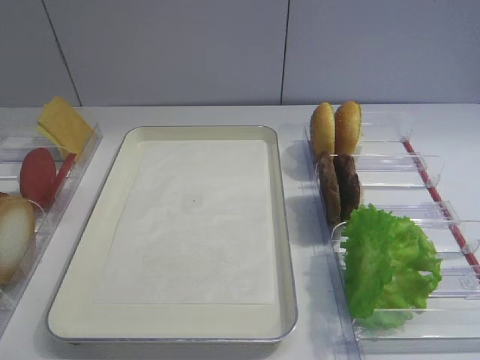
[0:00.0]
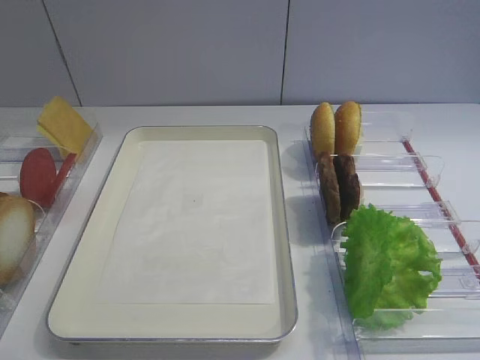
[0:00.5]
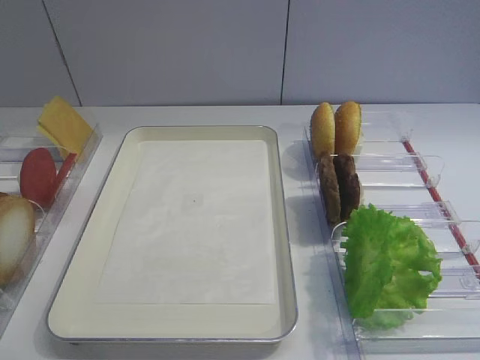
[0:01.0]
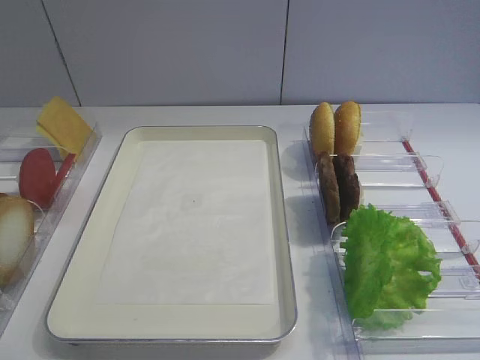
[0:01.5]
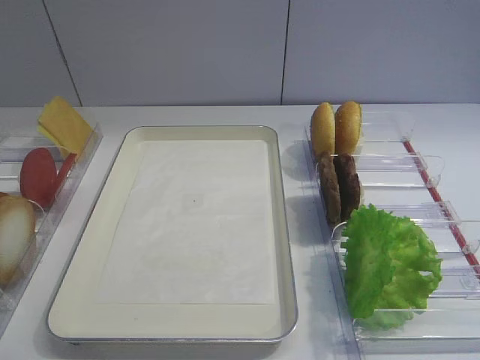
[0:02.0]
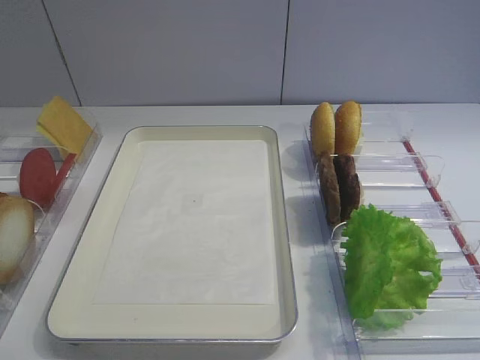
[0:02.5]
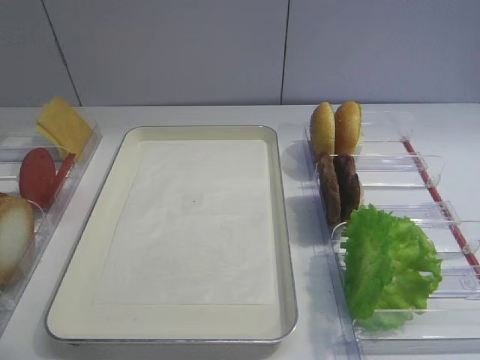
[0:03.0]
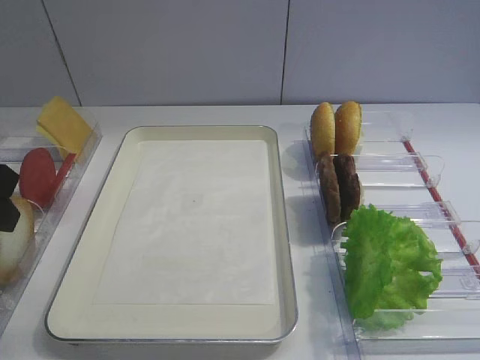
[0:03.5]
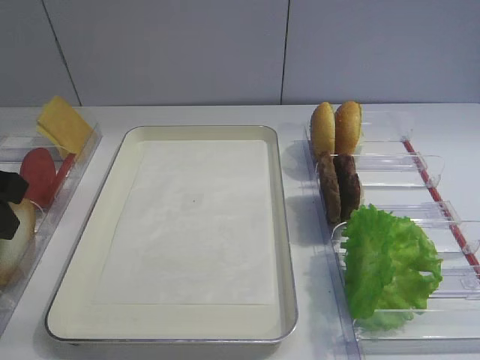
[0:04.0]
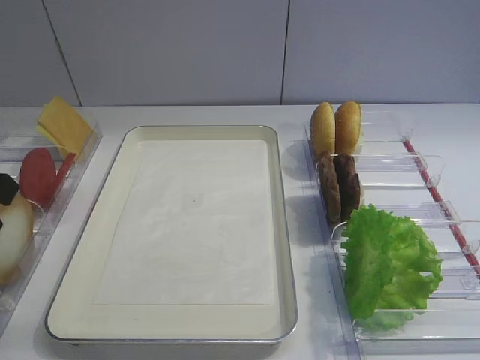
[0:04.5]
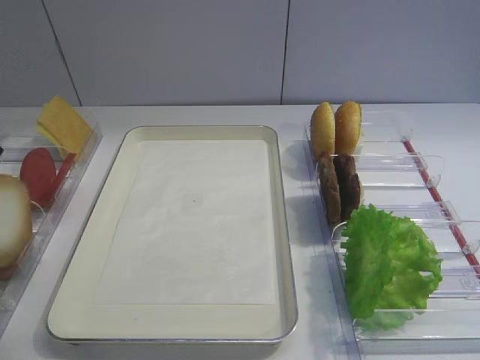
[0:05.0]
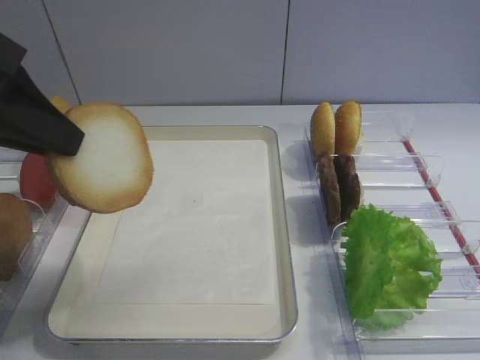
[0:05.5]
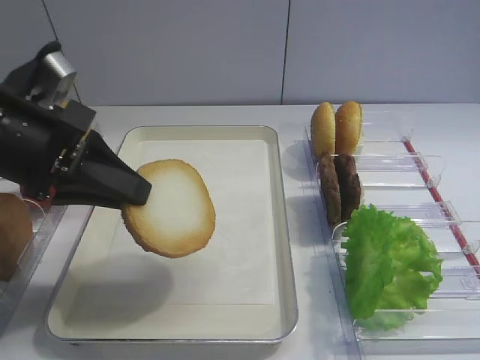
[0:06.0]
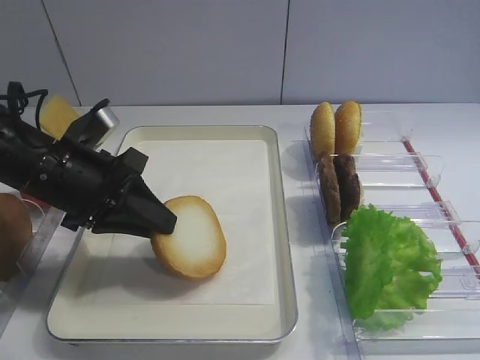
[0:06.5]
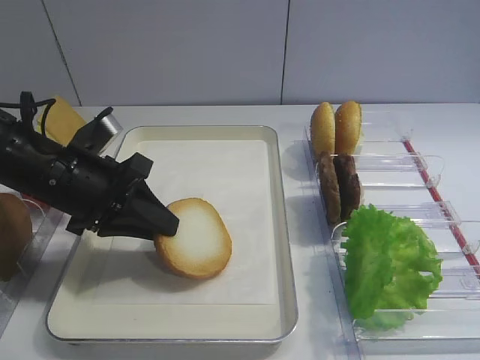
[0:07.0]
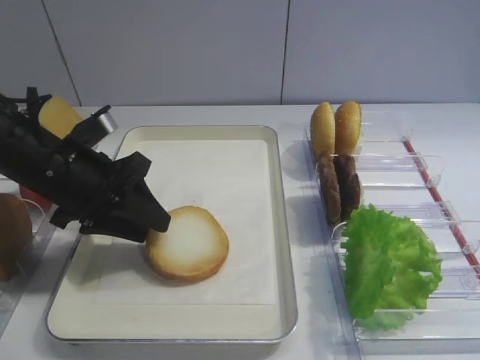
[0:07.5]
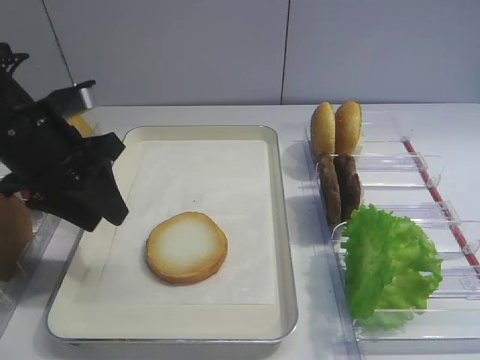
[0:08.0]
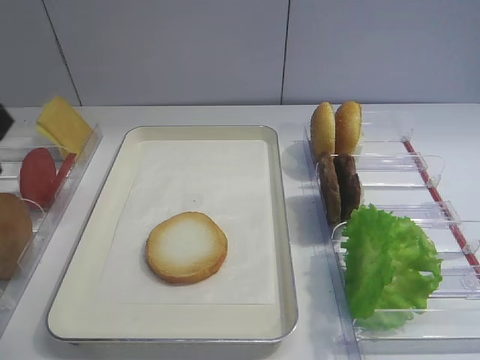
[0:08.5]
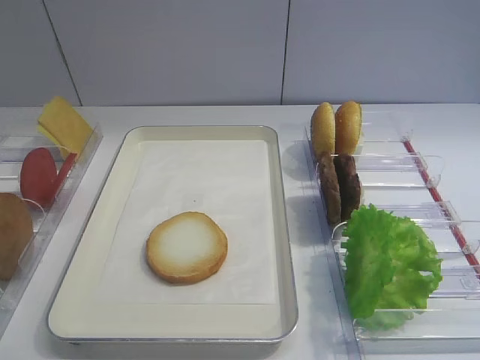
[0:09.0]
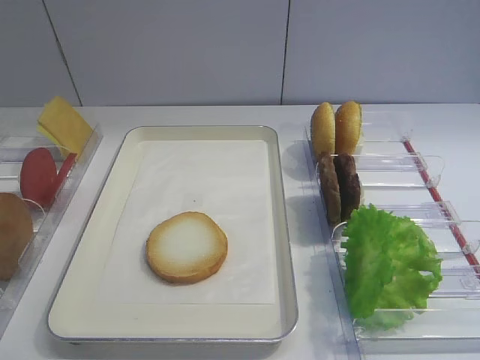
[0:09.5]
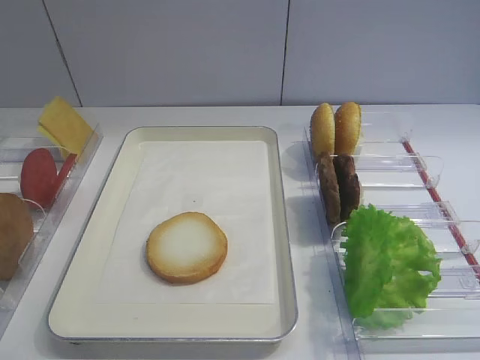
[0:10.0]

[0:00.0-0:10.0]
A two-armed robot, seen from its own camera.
Step, 0:04.5 to 0:07.5: Place the bread slice on the tray with the left gripper.
0:02.0 to 0:04.0: The left gripper shifts roughly 20 cm forward, and opens, then closes once more.
0:04.0 to 0:06.0: The left gripper goes about 10 cm to the right, and travels upward and back again, some 5 cm each way.
0:06.0 to 0:08.0: The left gripper opens.
0:08.0 to 0:10.0: The left gripper travels backward by roughly 30 cm.

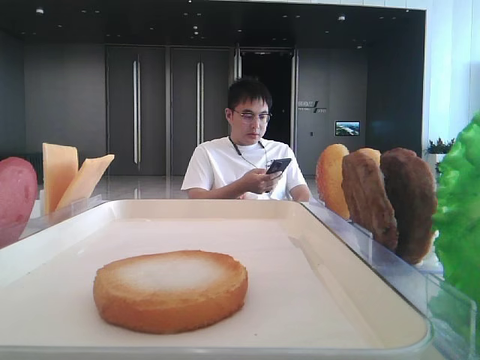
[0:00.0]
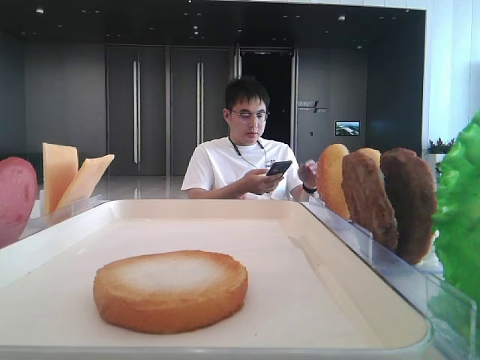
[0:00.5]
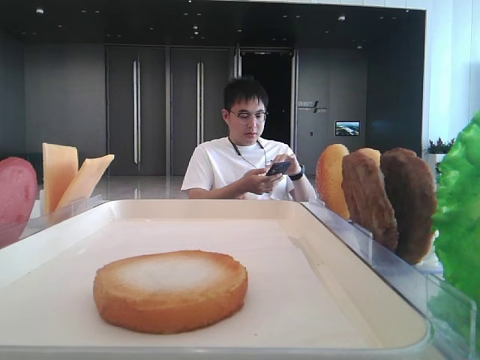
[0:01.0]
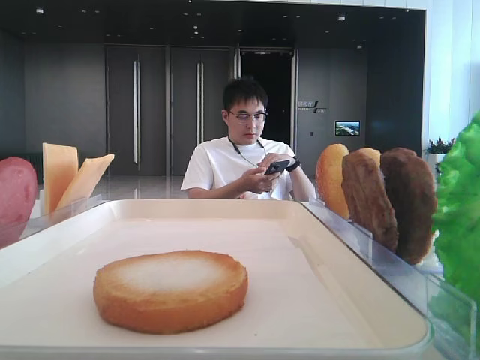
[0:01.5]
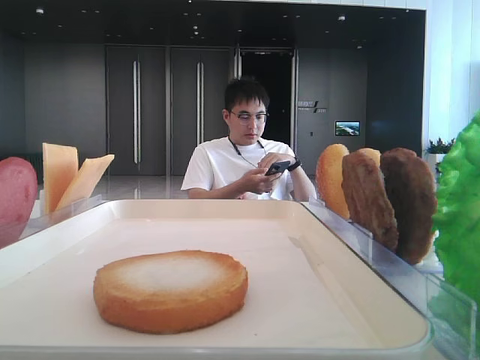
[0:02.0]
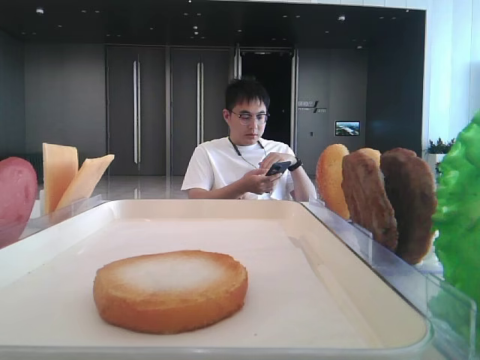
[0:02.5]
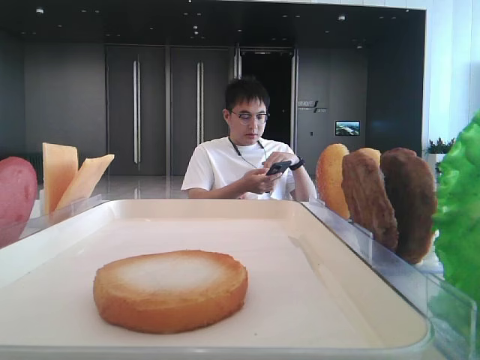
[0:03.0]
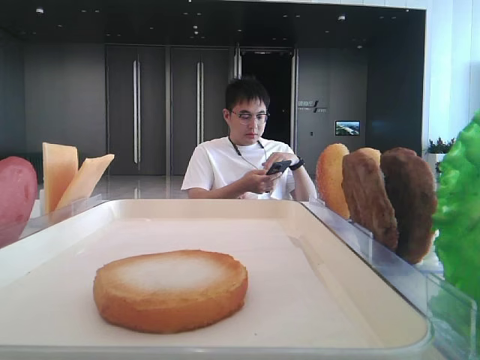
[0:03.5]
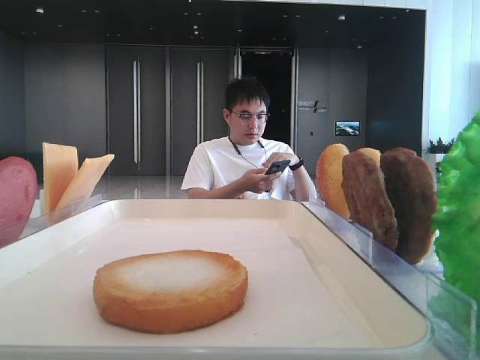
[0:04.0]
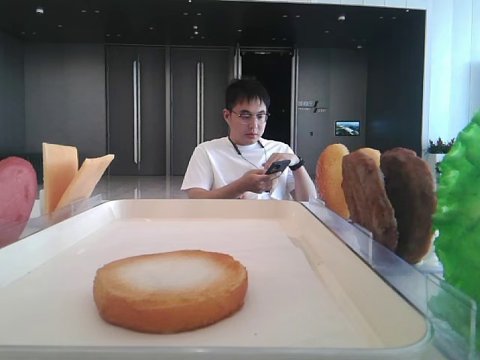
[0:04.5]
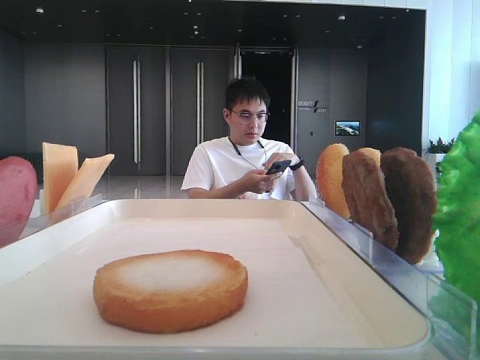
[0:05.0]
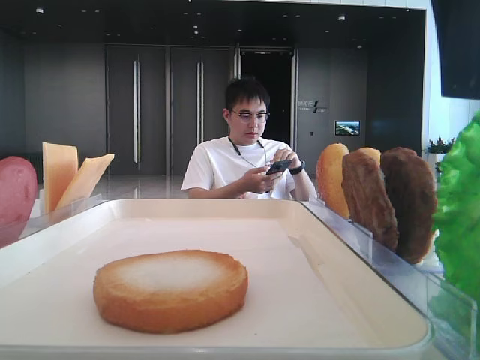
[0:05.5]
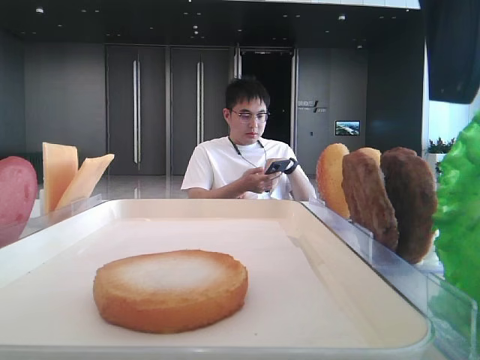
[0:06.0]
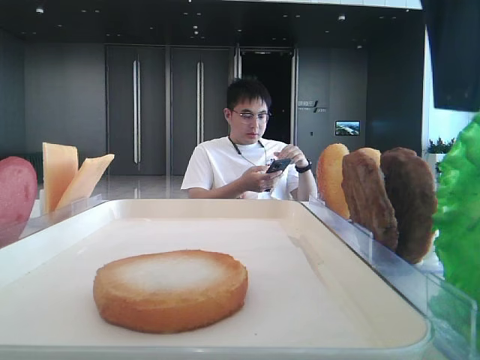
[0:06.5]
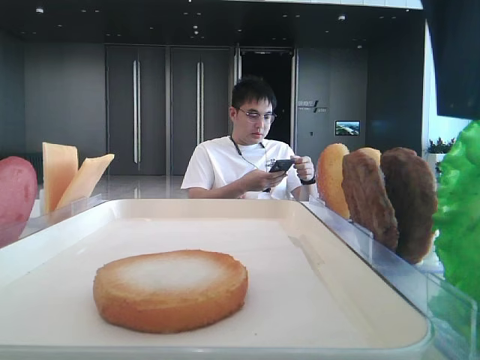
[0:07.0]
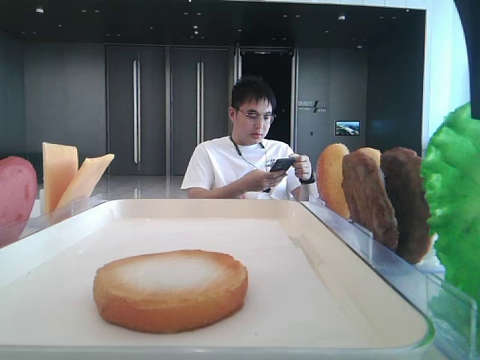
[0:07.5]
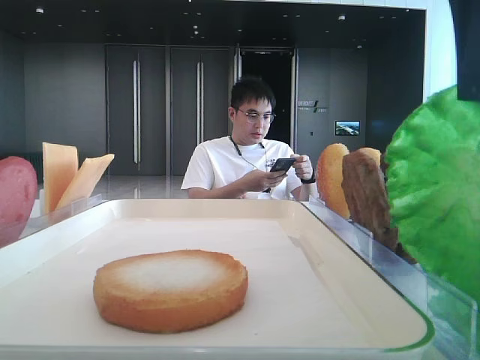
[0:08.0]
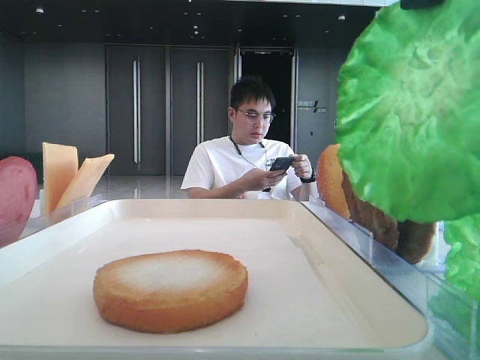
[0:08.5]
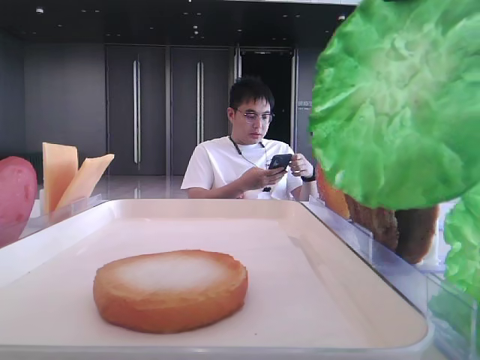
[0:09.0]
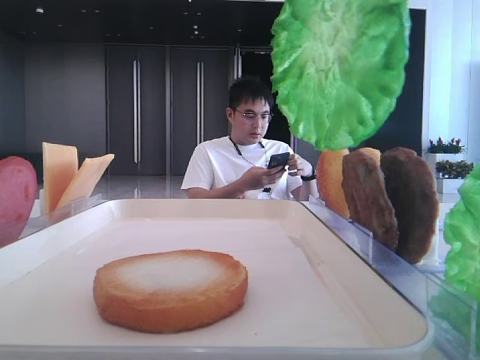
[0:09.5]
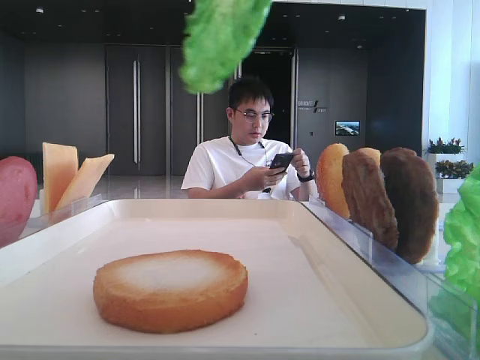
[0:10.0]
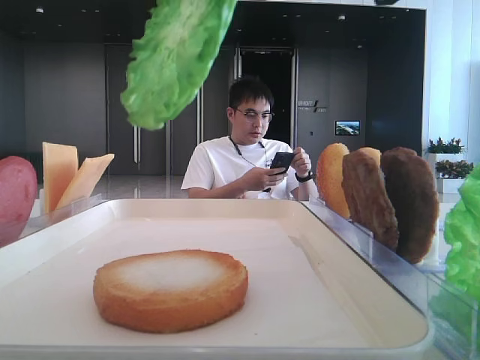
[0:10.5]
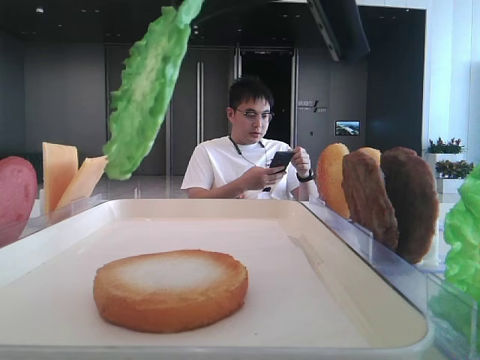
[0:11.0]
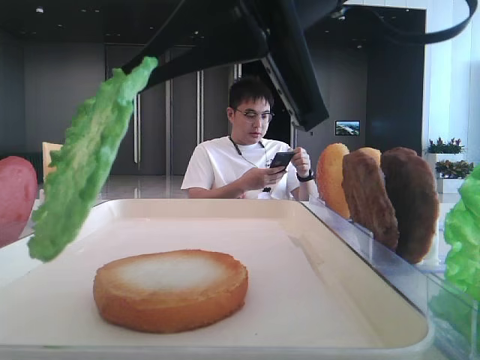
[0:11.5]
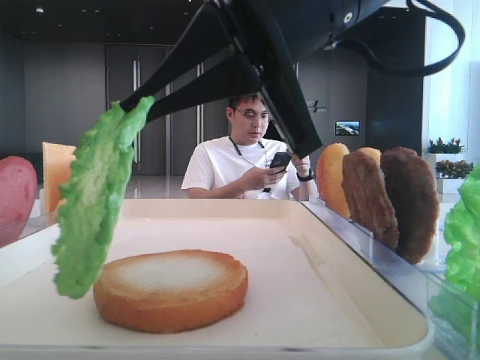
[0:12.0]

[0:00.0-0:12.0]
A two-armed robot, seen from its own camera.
Step, 0:00.0 to 0:07.5: Grab the lettuce leaf with the right hand.
0:04.0 to 0:06.0: The right gripper goes roughly 15 cm to the left.
0:06.0 to 0:08.0: The right gripper closes its fingers.
0:08.0 to 0:10.0: The right gripper travels upward by approximately 5 cm.
0:10.0 to 0:12.0: The right gripper heads downward and to the left, covering approximately 15 cm.

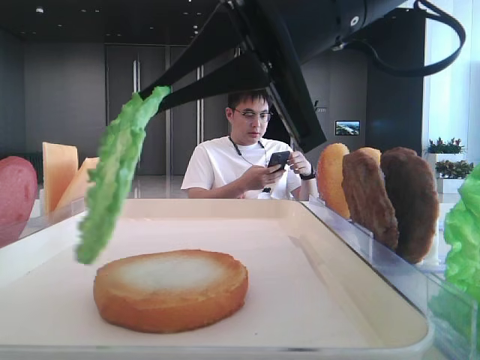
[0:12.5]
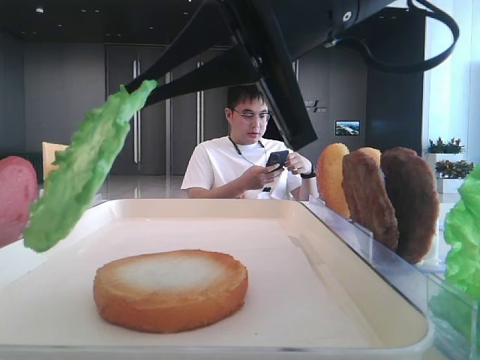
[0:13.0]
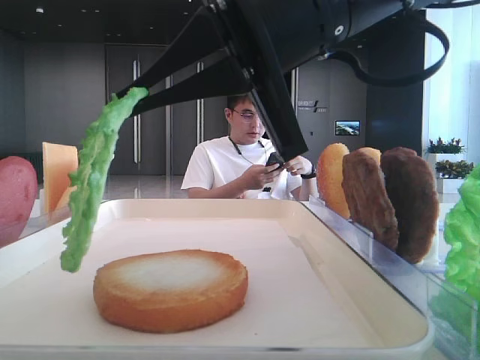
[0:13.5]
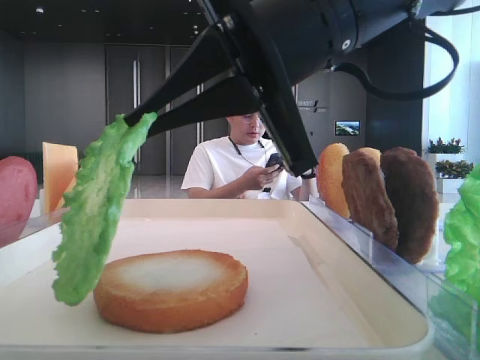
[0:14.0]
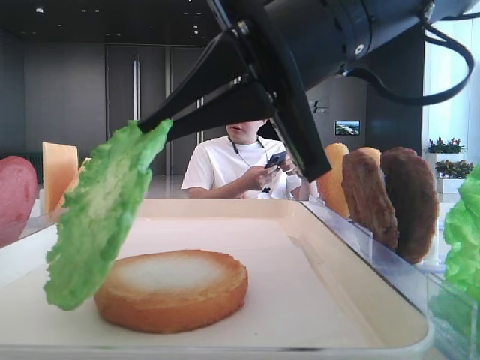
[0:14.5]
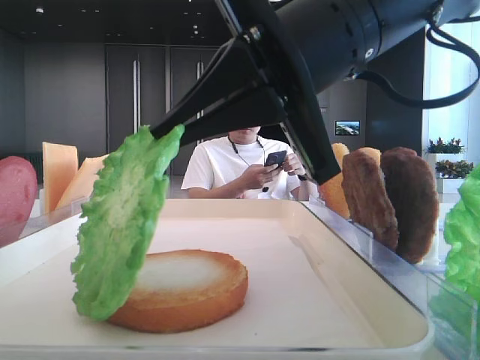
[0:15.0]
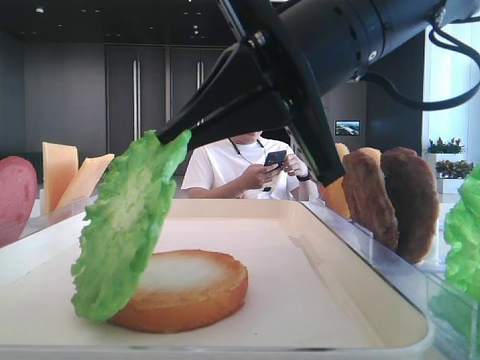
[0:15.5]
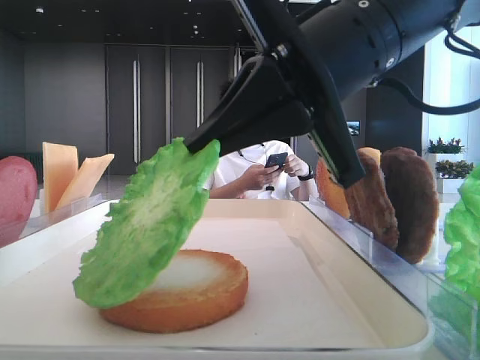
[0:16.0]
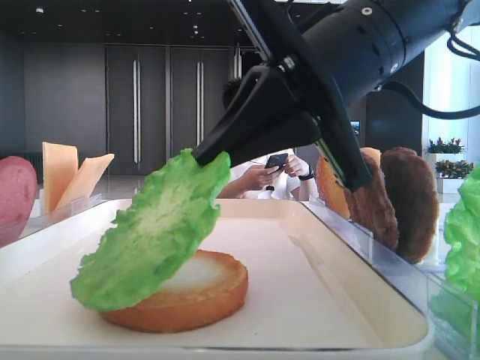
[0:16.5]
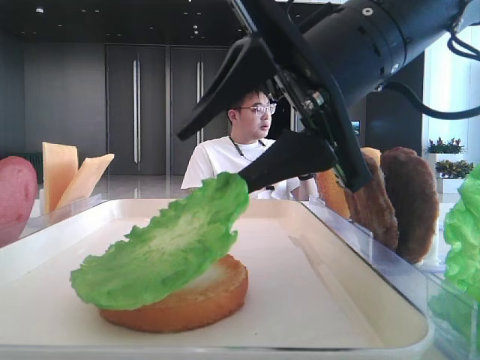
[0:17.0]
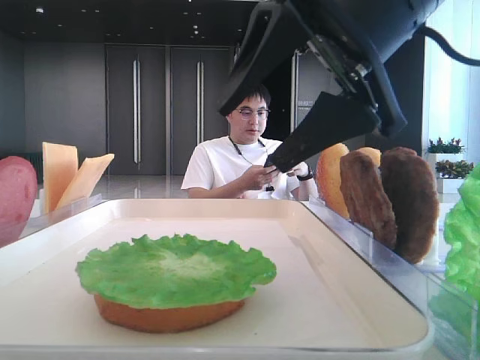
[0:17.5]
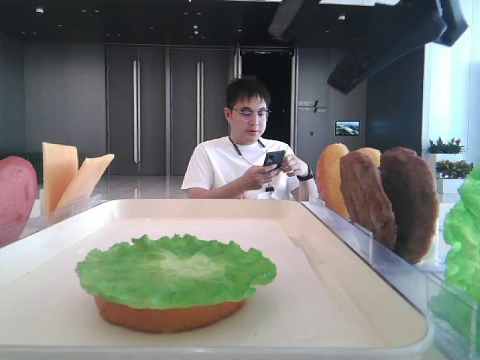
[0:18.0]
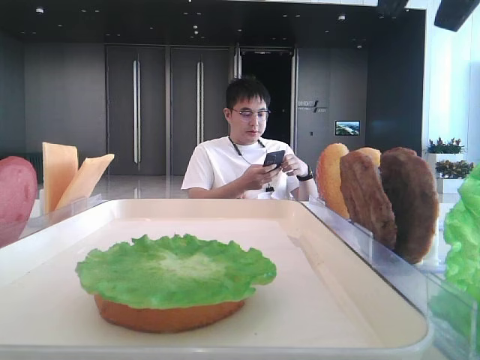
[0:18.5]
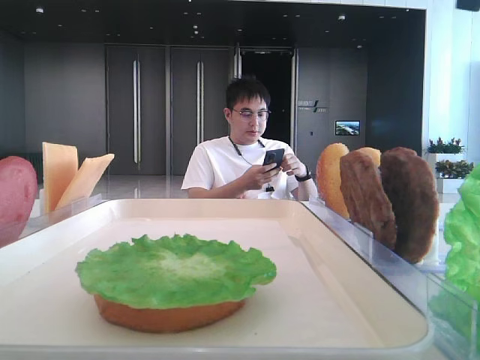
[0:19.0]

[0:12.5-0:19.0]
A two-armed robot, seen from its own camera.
Step, 0:12.5 to 0:17.0: Place the lettuce leaf on the bottom bread with the right hand.
0:12.5 to 0:14.5: There are only small adjustments of the grippers.
0:14.5 to 0:17.0: The right gripper opens.
0:17.0 to 0:19.0: The right gripper goes some 20 cm upward and to the right.
